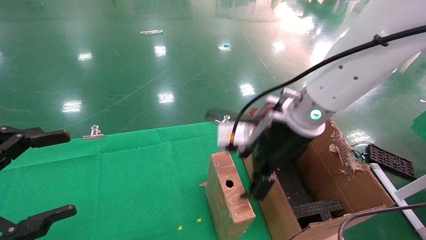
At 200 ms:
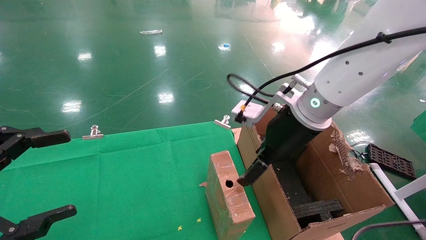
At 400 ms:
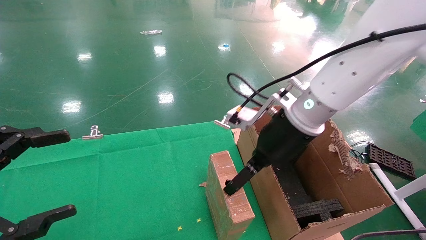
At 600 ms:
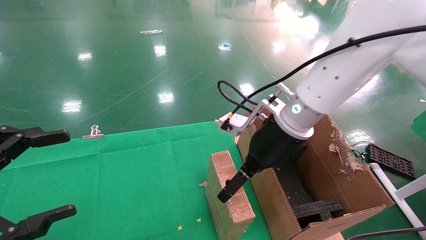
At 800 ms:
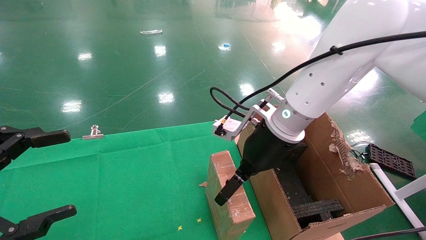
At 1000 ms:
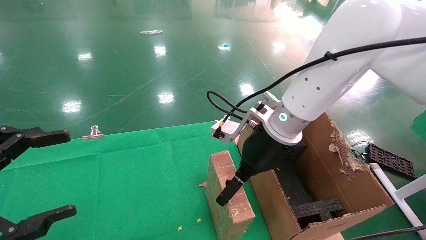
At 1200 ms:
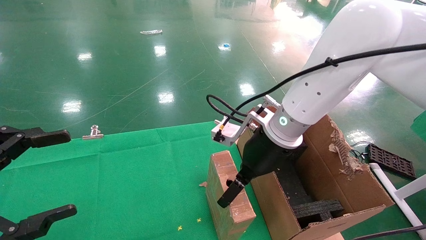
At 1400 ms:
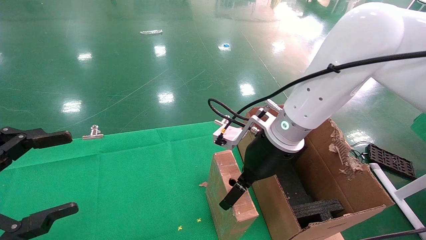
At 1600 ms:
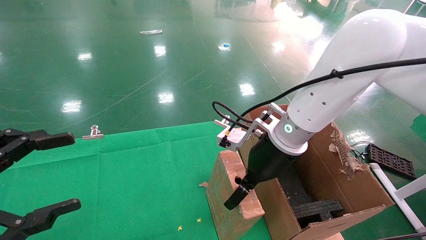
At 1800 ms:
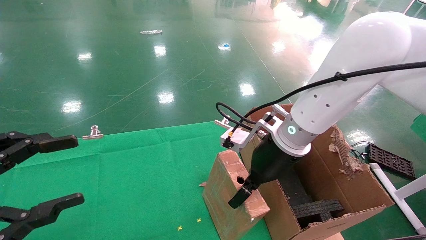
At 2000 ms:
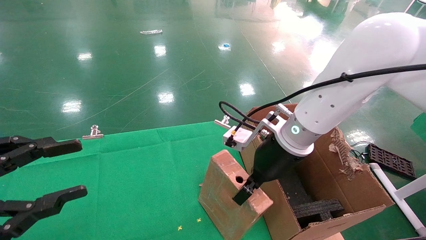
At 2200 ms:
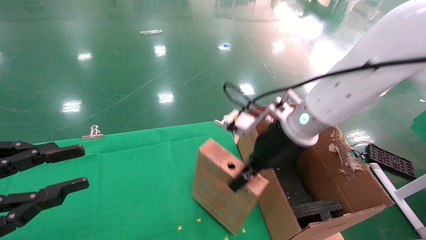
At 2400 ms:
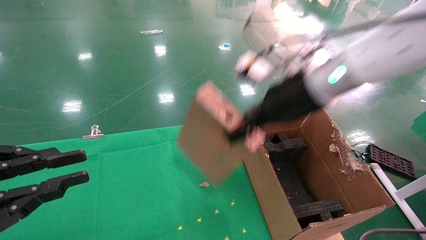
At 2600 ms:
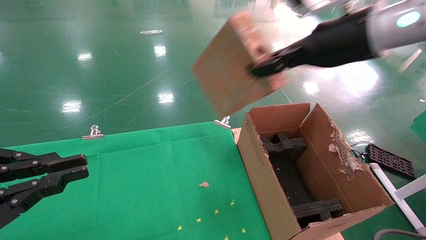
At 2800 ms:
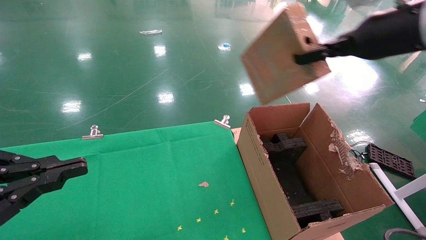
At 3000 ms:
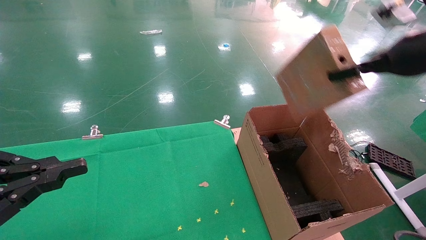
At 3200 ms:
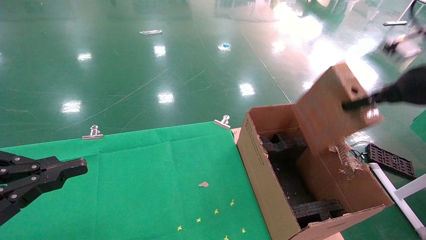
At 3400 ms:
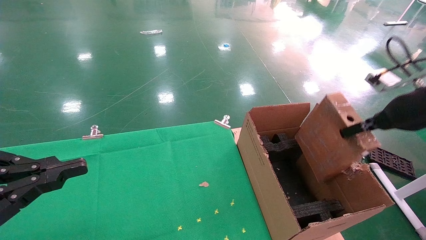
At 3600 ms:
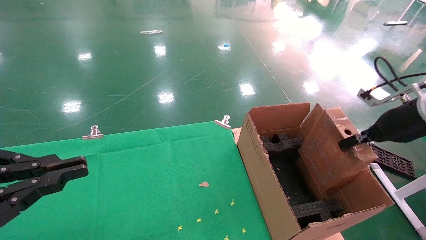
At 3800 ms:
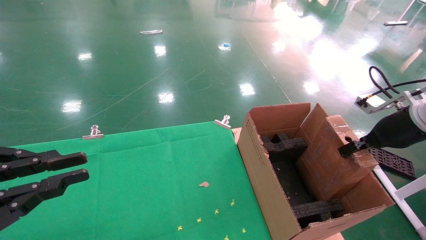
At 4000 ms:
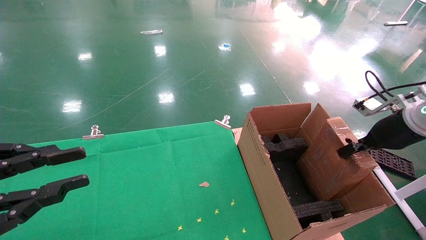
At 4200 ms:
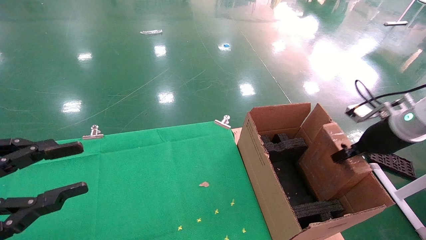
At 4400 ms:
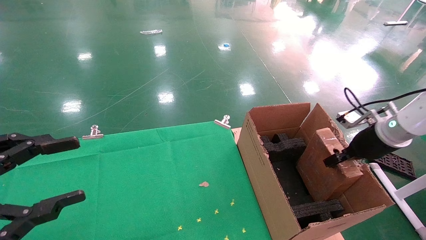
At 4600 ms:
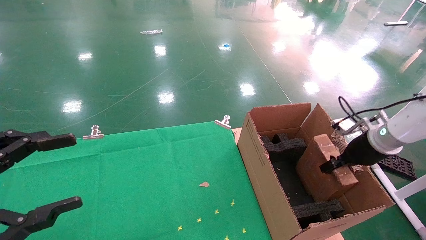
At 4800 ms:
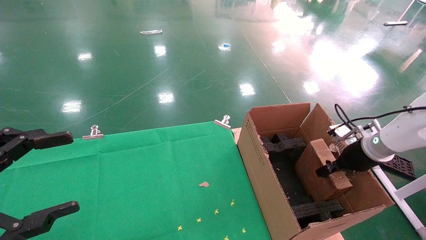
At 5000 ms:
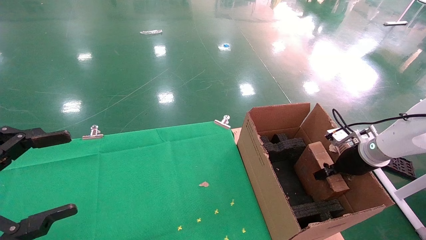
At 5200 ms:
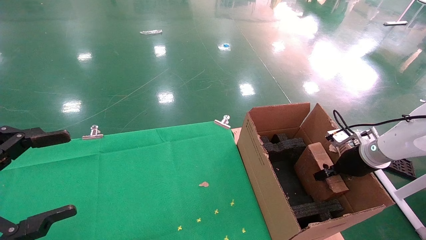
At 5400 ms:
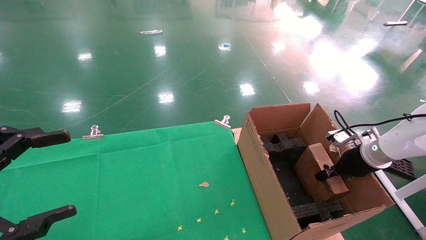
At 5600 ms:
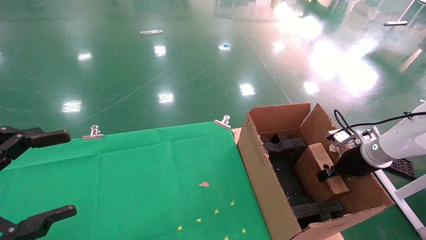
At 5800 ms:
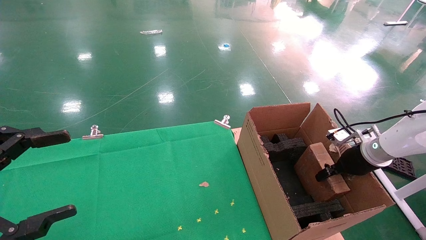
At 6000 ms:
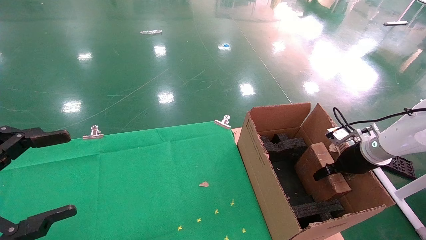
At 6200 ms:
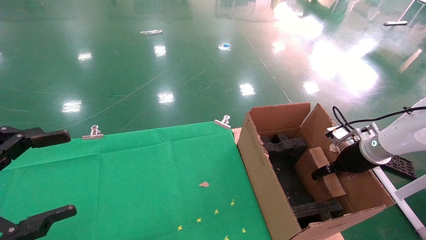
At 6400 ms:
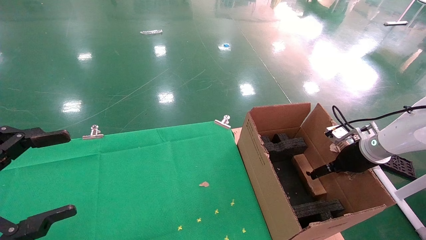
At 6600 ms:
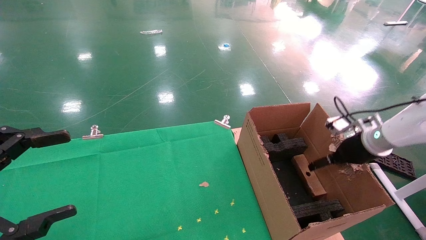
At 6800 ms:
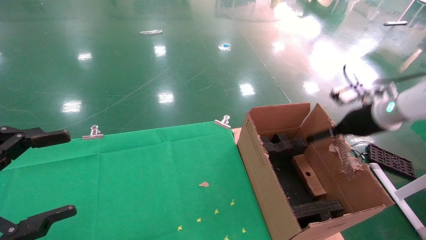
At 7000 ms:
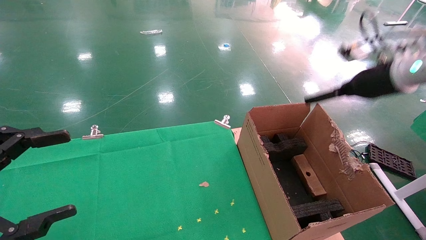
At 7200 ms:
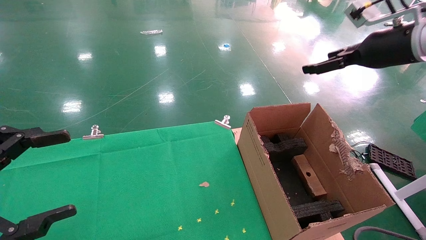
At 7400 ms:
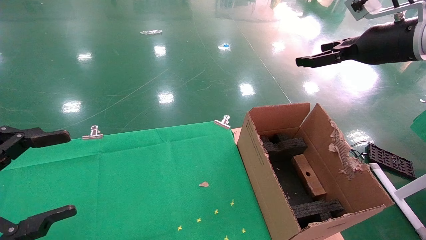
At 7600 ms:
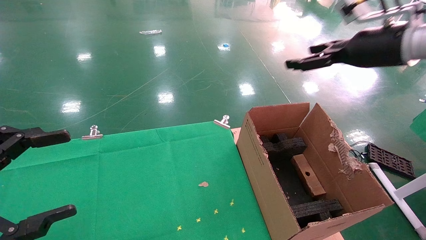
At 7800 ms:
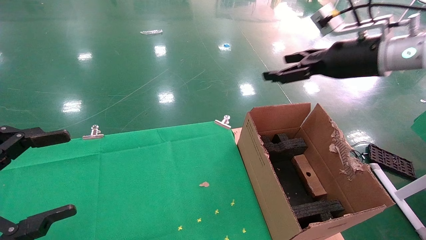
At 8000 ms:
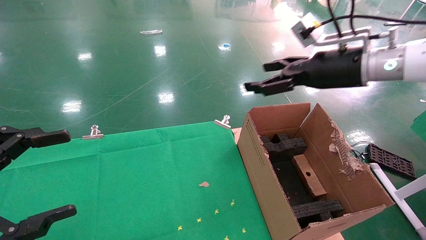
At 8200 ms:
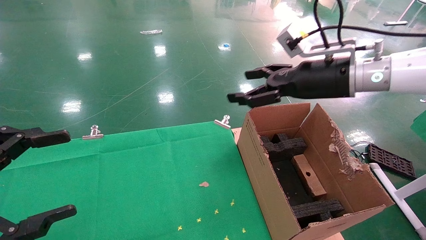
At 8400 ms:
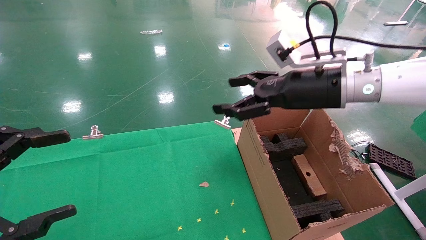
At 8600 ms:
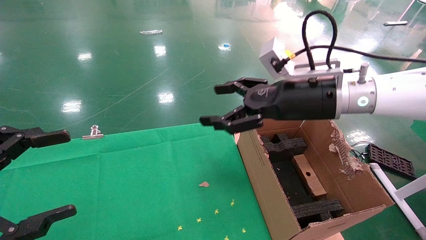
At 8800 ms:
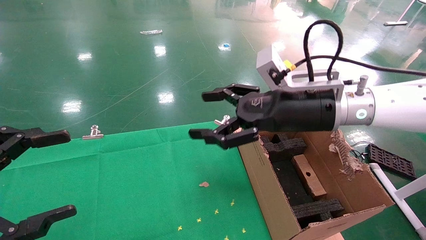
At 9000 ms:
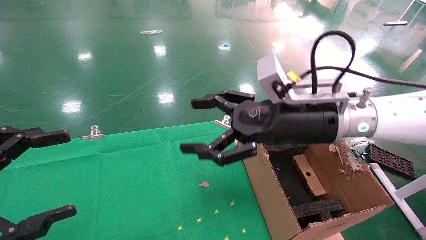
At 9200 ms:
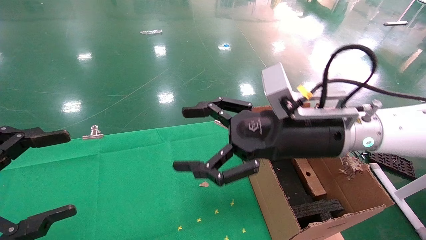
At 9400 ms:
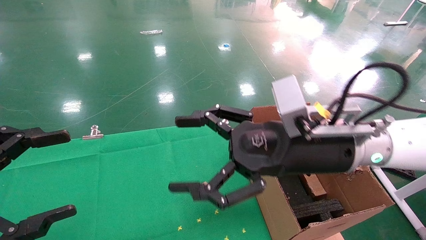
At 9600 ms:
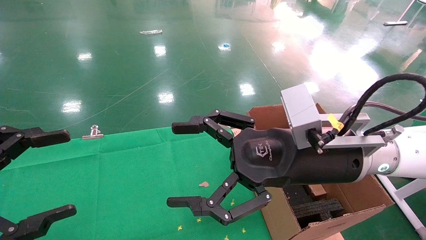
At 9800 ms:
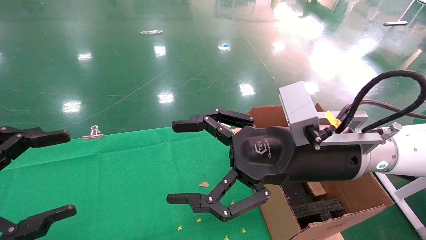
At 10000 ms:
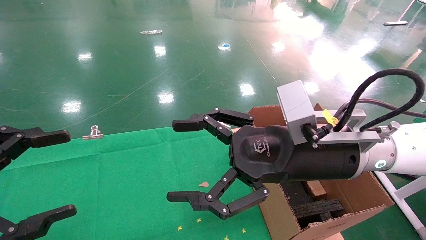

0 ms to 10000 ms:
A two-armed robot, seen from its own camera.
Task of the whole recording: using a robotic arm to pick up a cardboard box and palace it the carton.
Step, 0 ms to 2000 ms: Pick up the mouse and the power cord paper box.
Step, 2200 ms to 6400 ms: Place the mouse and the power cord paper box into the container.
1400 ms to 2800 ms: The right gripper travels to the right and upward by some 25 cm, and closes; the left gripper closes its fingers.
2800 ms to 4200 ms: The right gripper moves downward and to the right, about 20 cm.
4200 ms to 5800 ms: The left gripper opens up. Meanwhile the right gripper travels downward by roughly 10 cm.
5800 ms to 7200 ms: The right gripper moves upward, some 25 cm, and opens up.
7200 ms to 8600 ms: The right gripper is displaced to the left by approximately 20 cm.
8600 ms to 10000 ms: The right gripper shifts approximately 10 cm backward.

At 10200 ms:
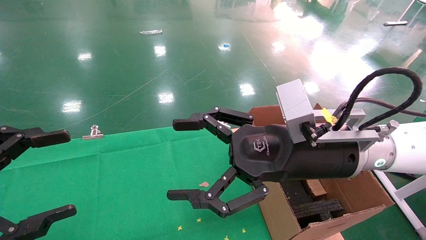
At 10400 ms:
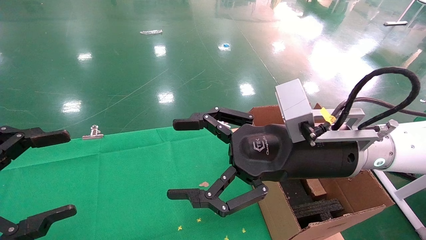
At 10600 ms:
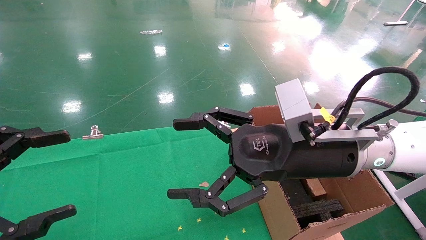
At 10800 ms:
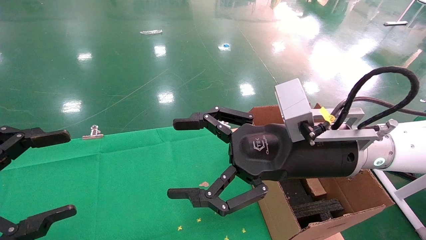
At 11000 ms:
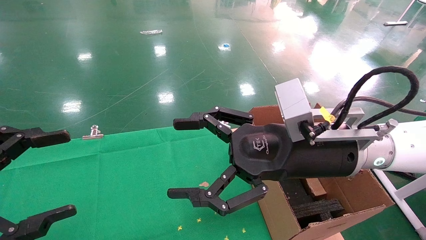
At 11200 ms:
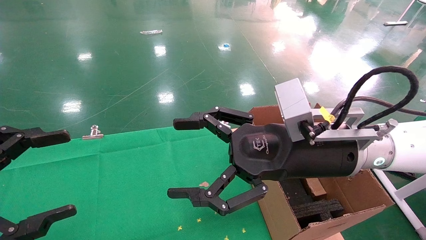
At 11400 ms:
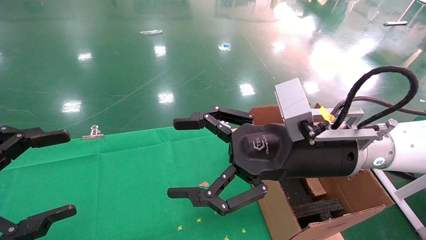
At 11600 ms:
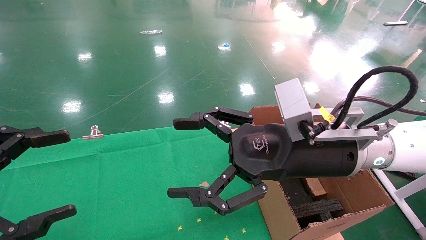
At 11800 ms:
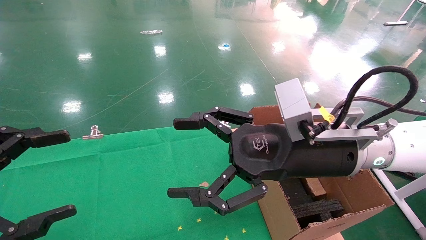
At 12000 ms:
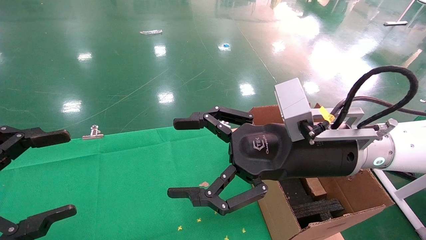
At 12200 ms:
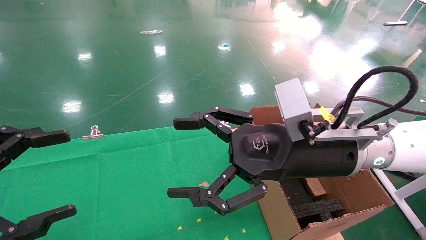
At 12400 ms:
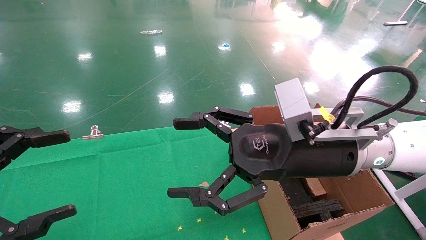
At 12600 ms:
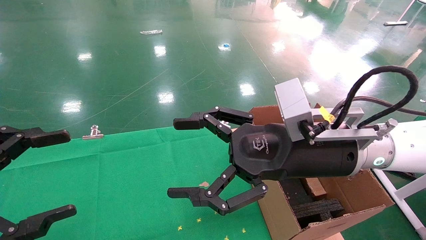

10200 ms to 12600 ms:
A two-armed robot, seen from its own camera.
Task of the whole recording: using a robotic arm to pick up a cardboard box and palace it the carton.
10200 ms to 12600 ms: Both grippers stay put.
